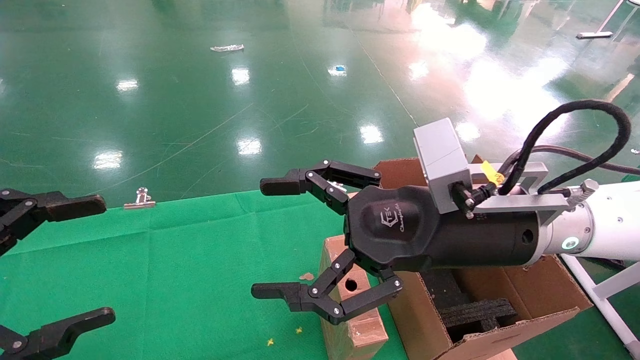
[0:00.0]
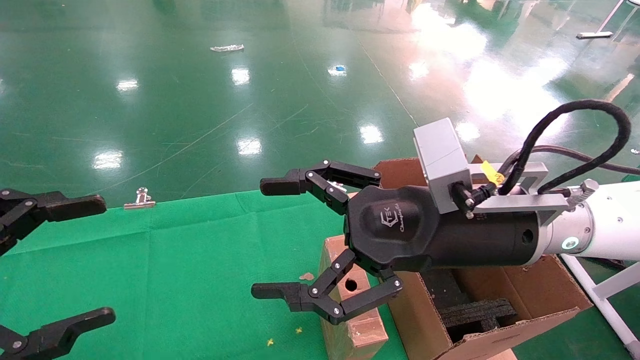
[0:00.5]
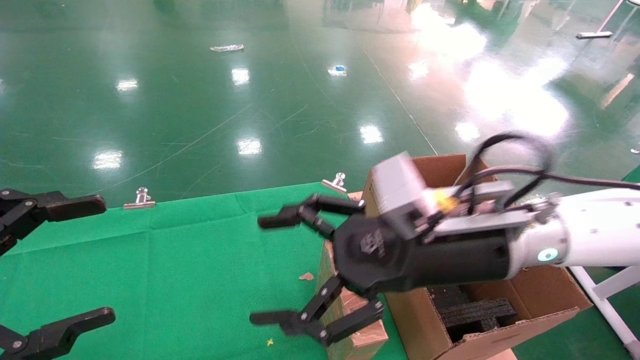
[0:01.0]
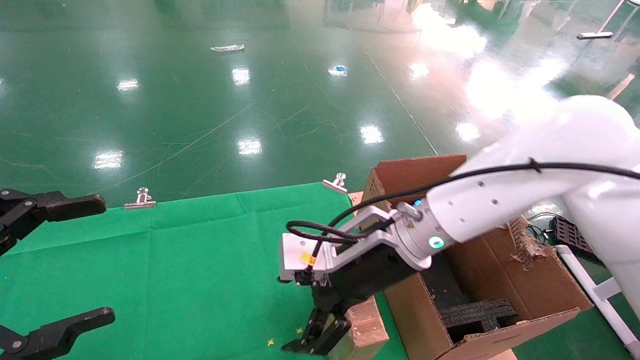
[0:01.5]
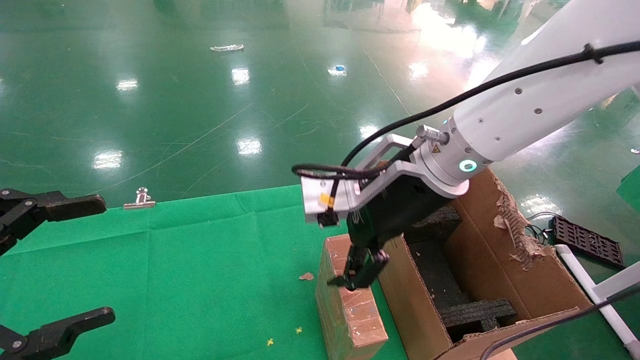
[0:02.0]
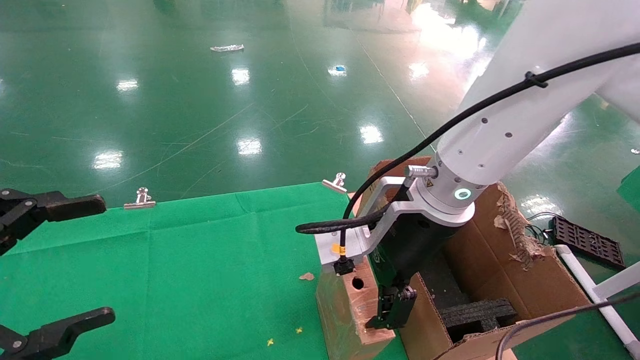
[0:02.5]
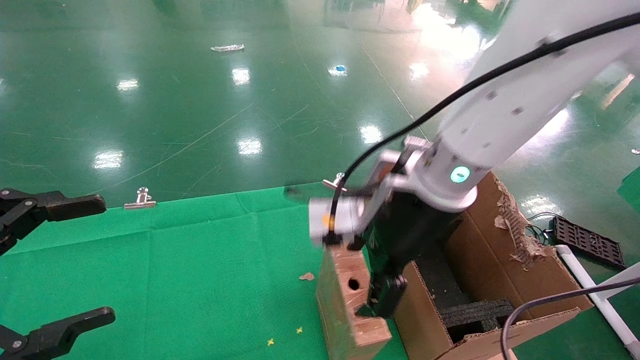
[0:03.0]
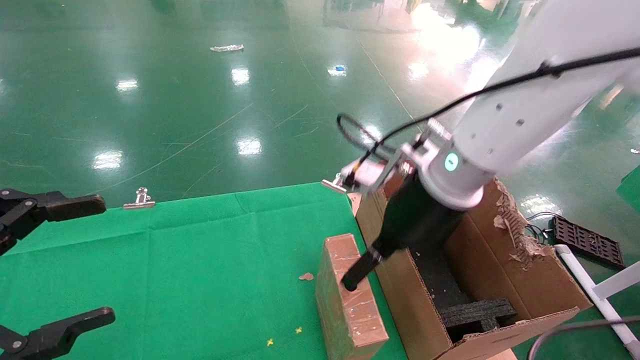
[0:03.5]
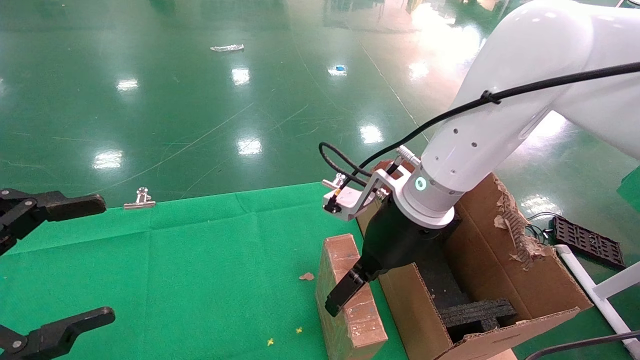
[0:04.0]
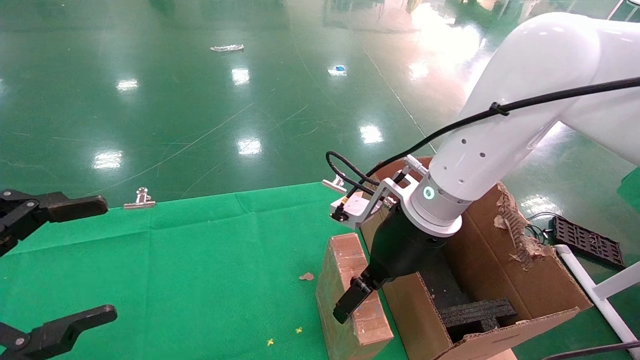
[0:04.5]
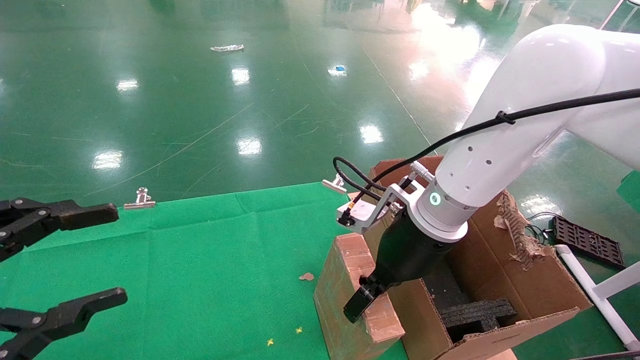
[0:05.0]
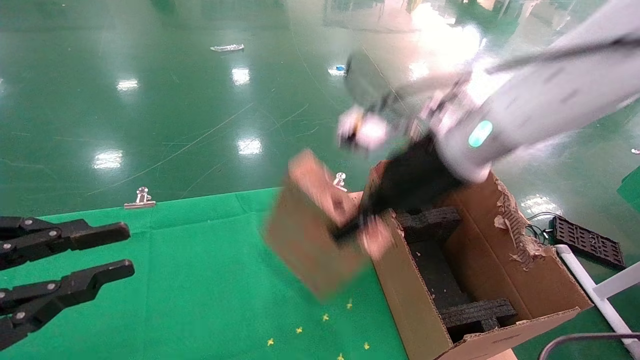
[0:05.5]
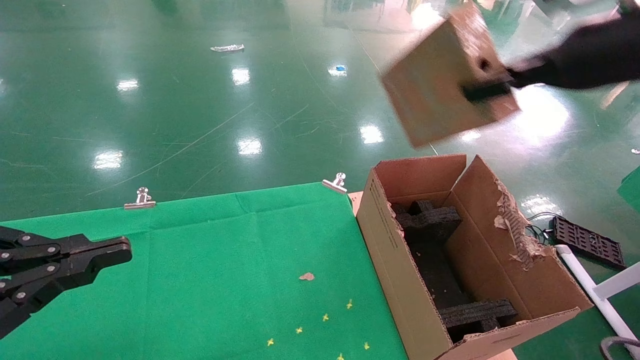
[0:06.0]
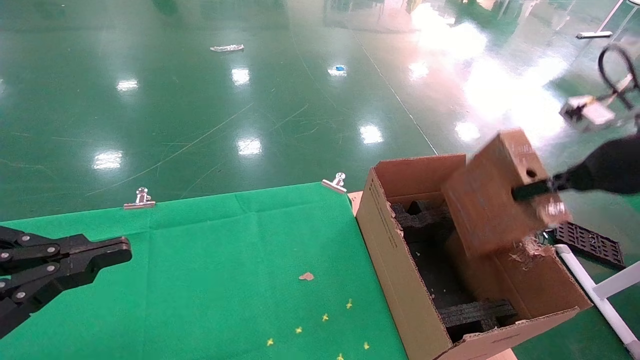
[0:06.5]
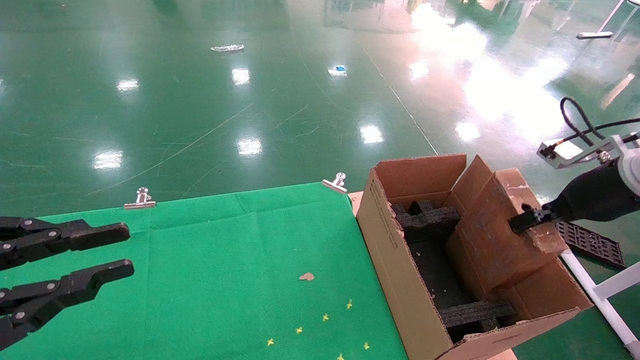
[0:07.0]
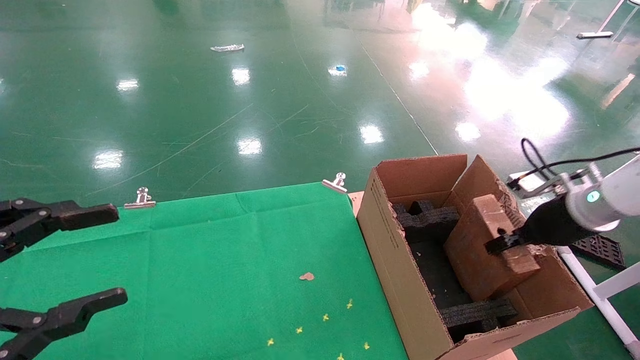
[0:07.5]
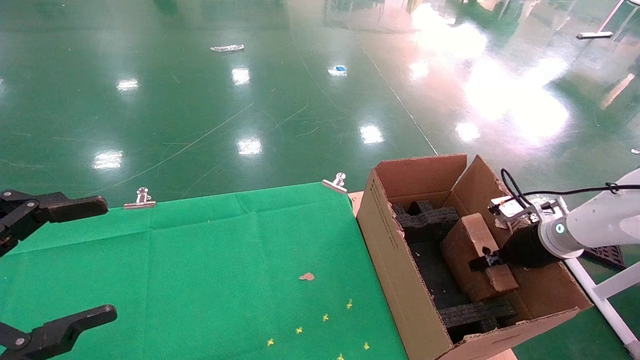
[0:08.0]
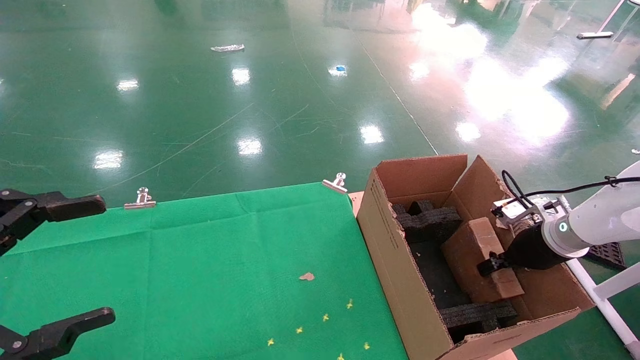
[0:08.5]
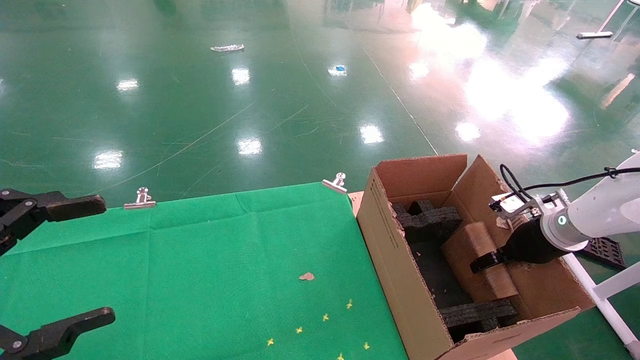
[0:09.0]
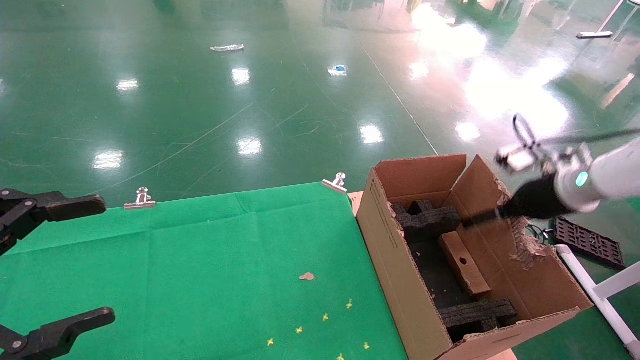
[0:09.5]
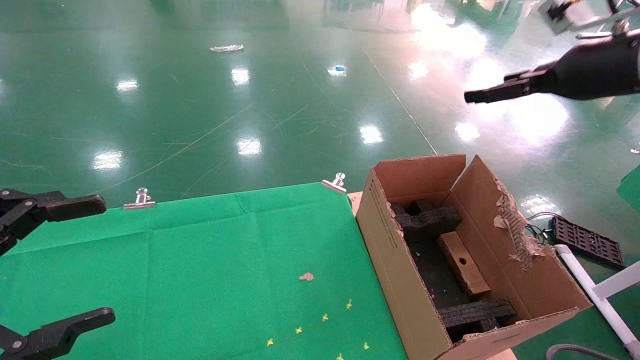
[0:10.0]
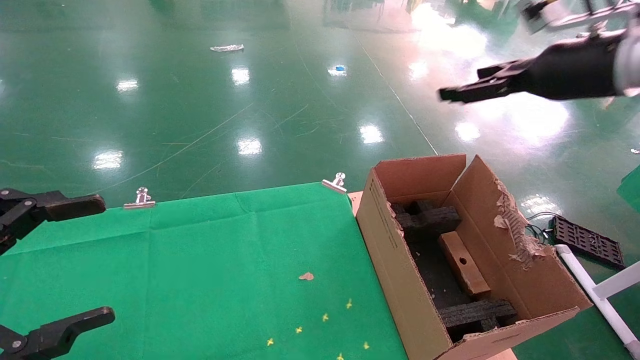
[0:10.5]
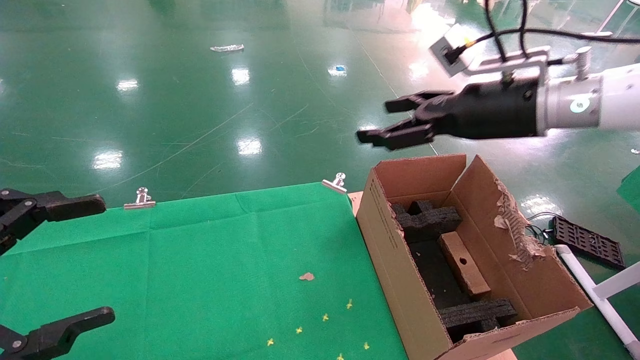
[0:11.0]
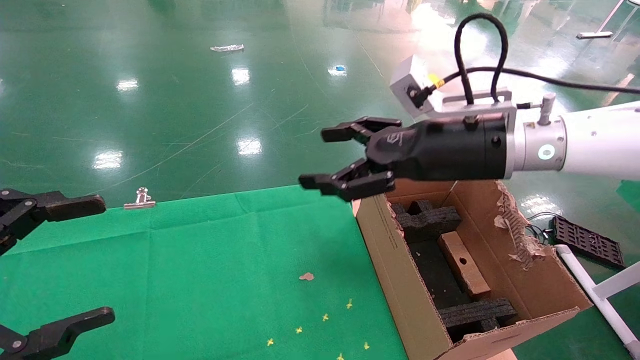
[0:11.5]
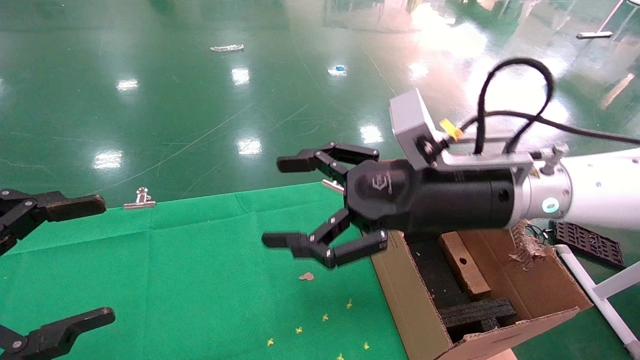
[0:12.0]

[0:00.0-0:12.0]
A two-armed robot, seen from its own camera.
Task of the whole recording: using a robotic arm to pick up a cardboard box and palace it the carton.
Step, 0:01.5 to 0:05.0: Pick up the mouse and the power cord paper box.
Step, 0:05.5 to 0:09.5: Place the mouse and the power cord paper box into the container.
0:00.0 to 0:02.0: The right gripper travels forward by some 5 cm.
0:04.0 to 0:06.0: The right gripper is displaced to the right and upward by roughly 25 cm, and closes its fingers. The left gripper closes up.
0:06.0 to 0:08.0: The right gripper goes roughly 30 cm downward, while the left gripper opens up.
0:08.0 to 0:10.0: The right gripper is displaced upward by approximately 25 cm, and opens.
0:10.0 to 0:12.0: The right gripper moves to the left and downward, about 25 cm.

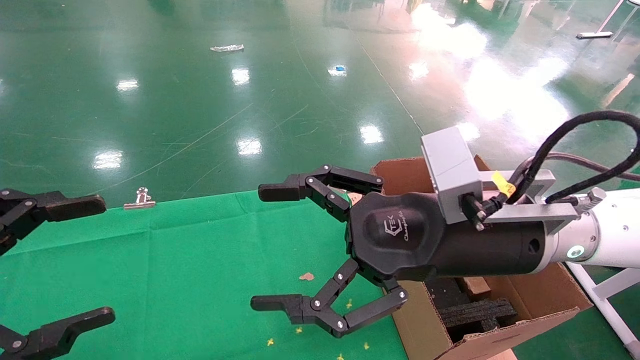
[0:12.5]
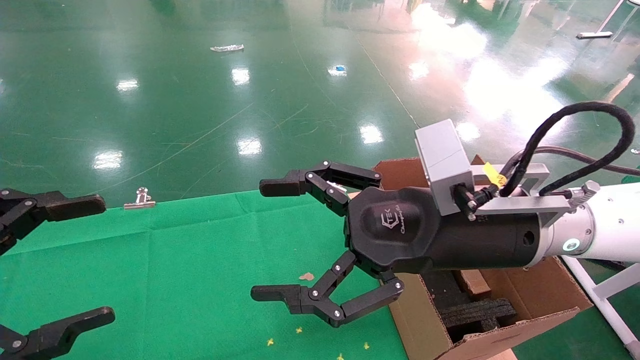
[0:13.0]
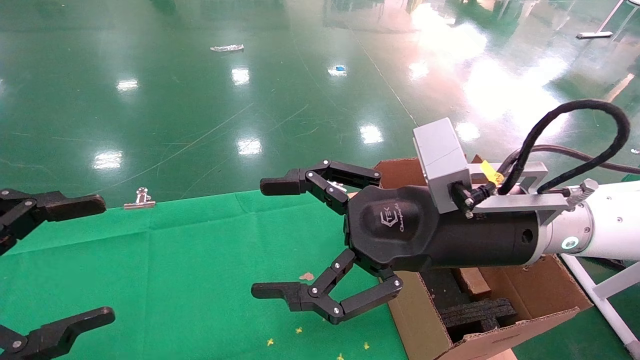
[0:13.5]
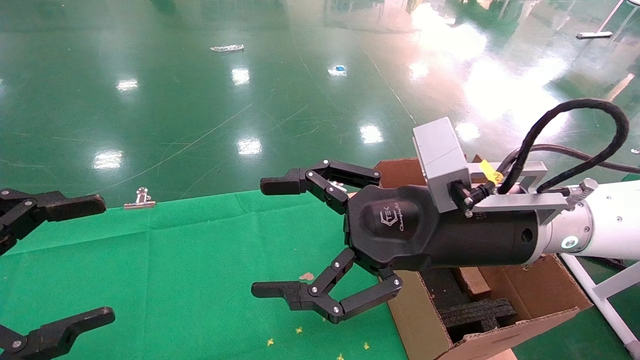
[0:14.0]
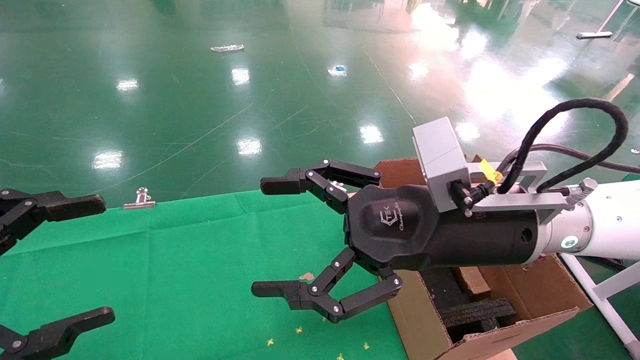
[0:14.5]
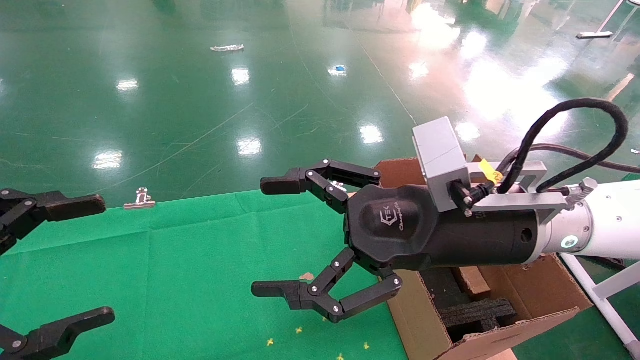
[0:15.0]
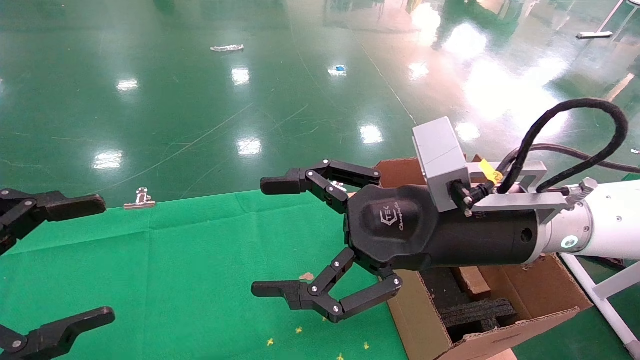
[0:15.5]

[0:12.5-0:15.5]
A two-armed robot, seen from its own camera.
Task of the whole recording: using a robotic arm to pick up a cardboard box and palace it the carton.
0:12.5 to 0:15.5: Neither gripper changes place.
